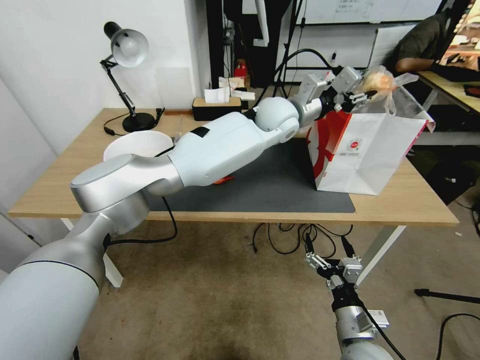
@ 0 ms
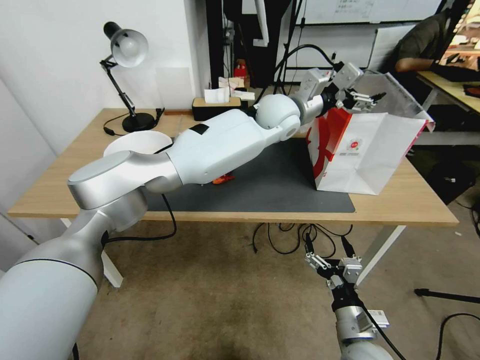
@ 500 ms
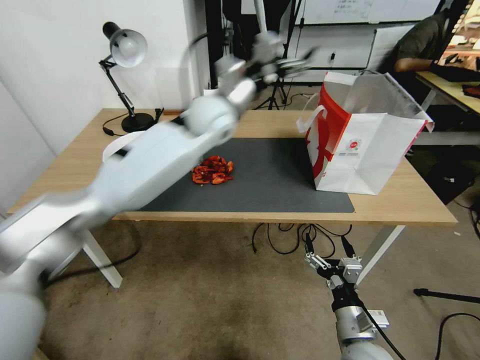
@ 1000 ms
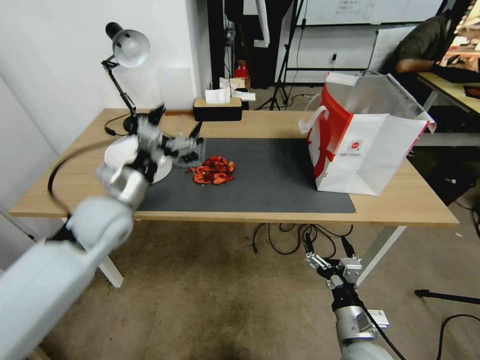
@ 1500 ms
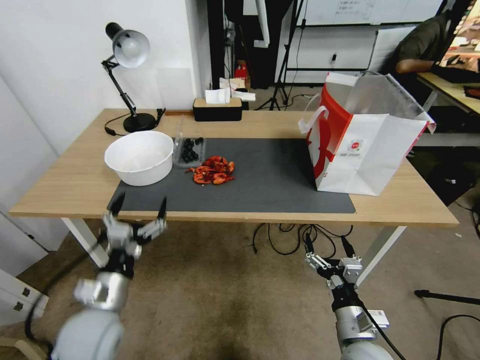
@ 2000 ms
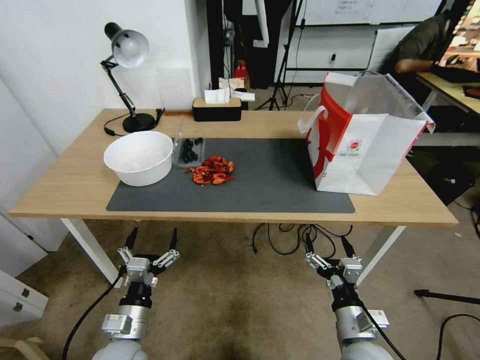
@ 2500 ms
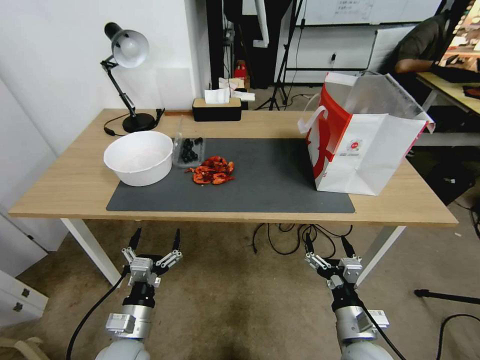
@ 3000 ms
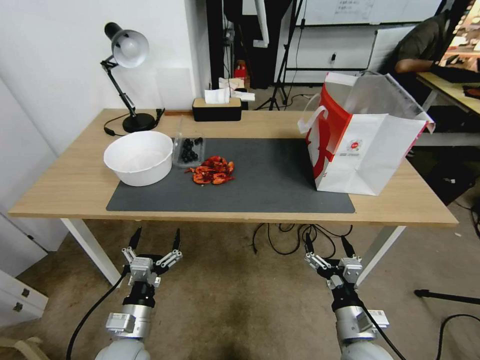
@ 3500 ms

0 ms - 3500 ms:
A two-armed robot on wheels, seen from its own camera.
0 ms - 2000 ms: The left gripper is displaced backward, to the left and downward by some 60 cm, and opens up.
2000 ms - 3500 ms: The left gripper goes approximately 5 cm downward.

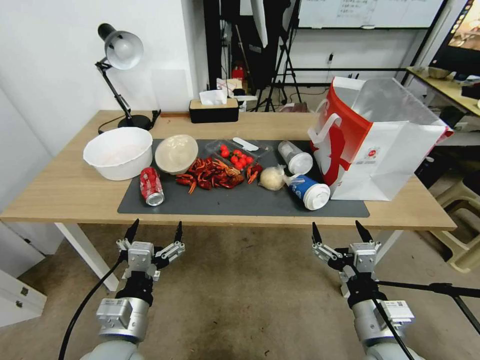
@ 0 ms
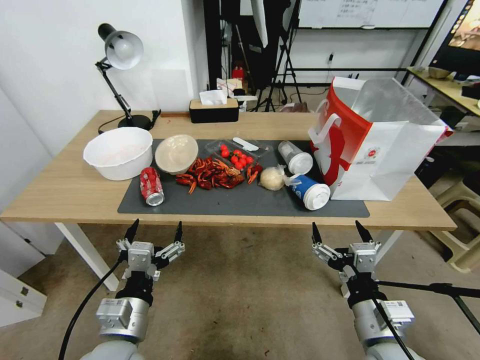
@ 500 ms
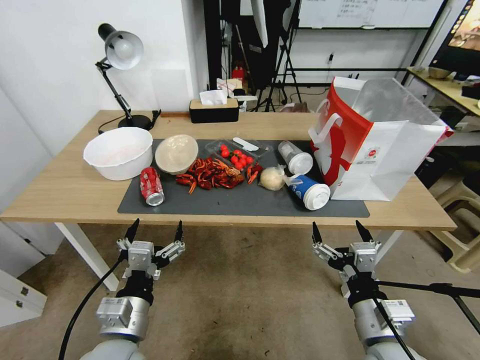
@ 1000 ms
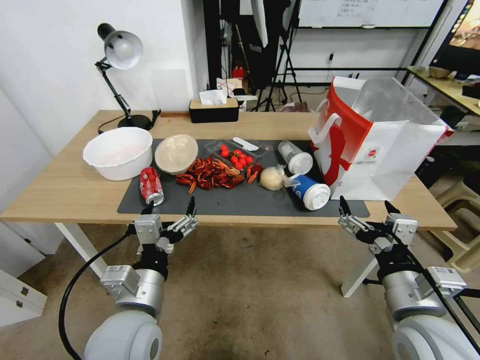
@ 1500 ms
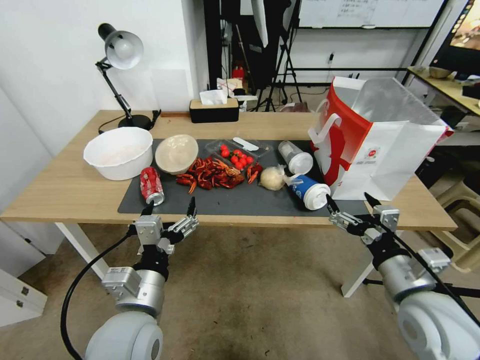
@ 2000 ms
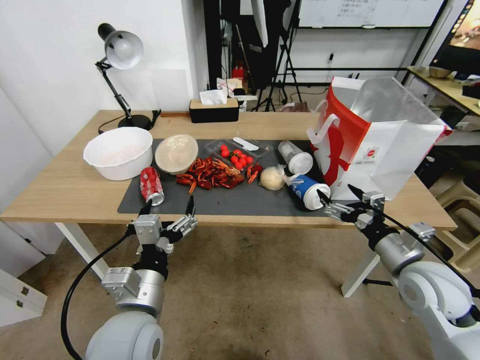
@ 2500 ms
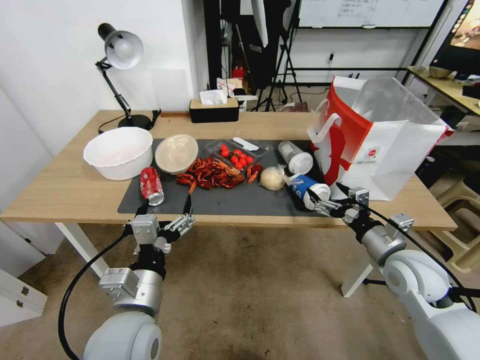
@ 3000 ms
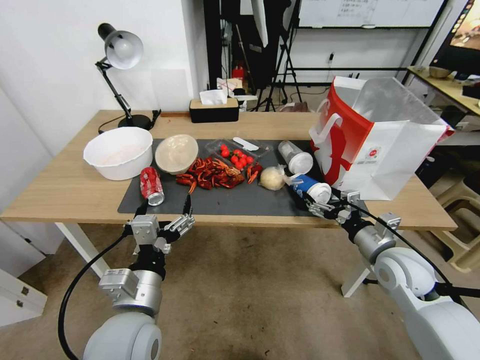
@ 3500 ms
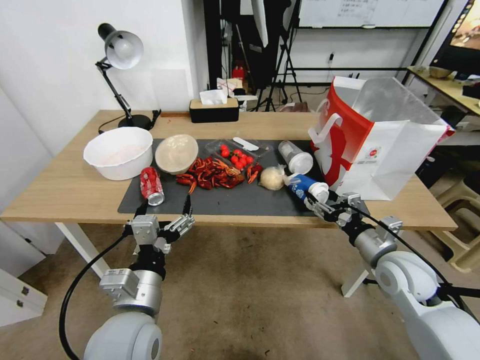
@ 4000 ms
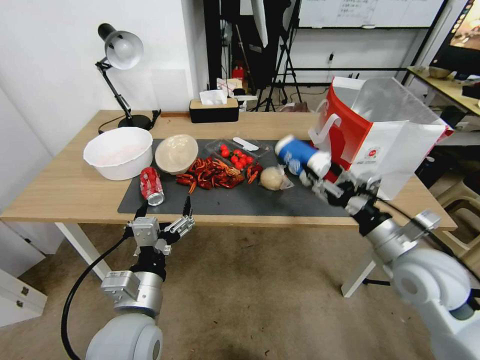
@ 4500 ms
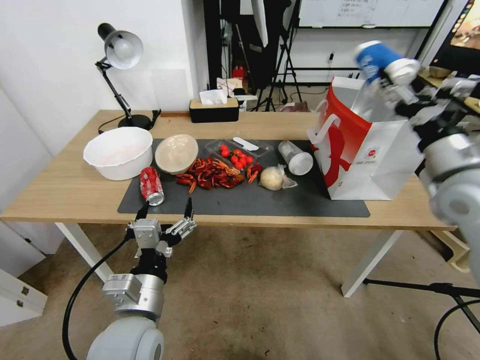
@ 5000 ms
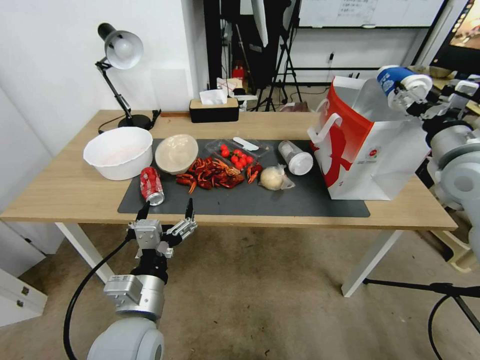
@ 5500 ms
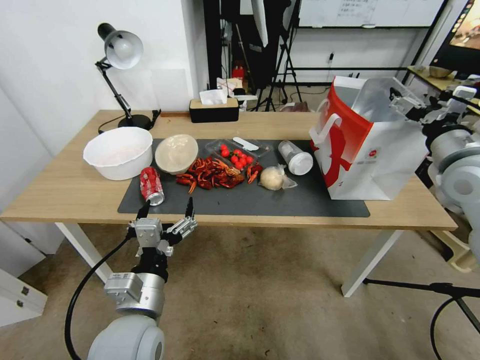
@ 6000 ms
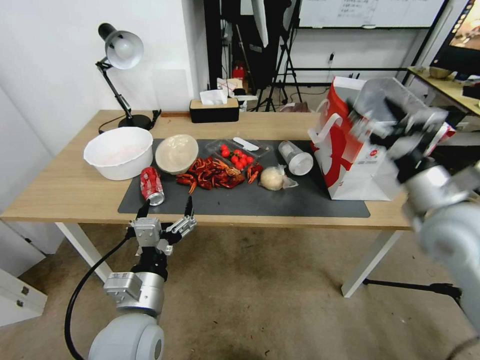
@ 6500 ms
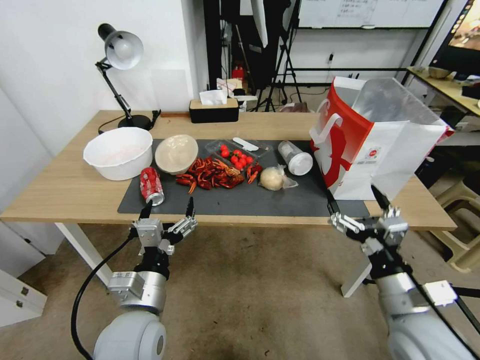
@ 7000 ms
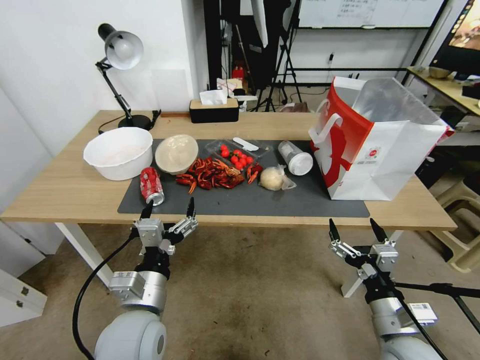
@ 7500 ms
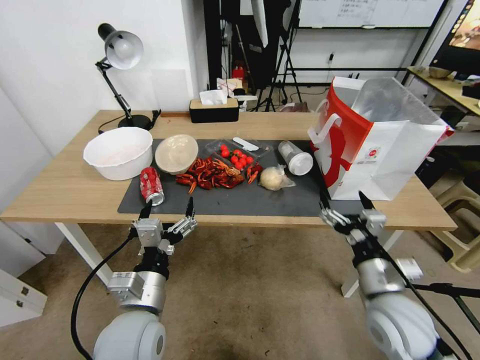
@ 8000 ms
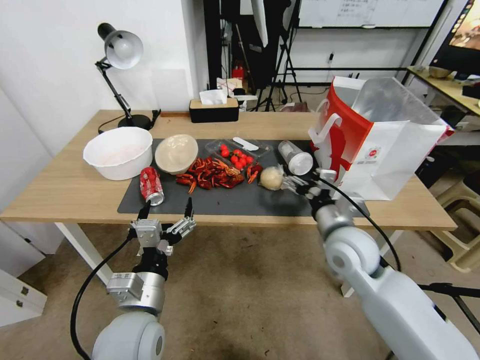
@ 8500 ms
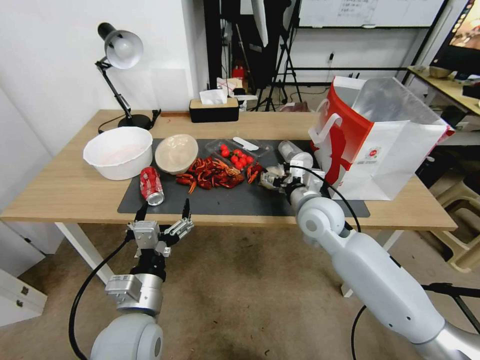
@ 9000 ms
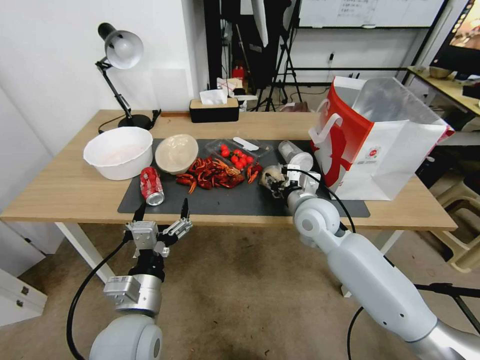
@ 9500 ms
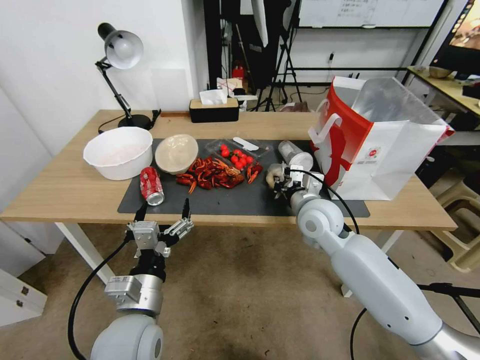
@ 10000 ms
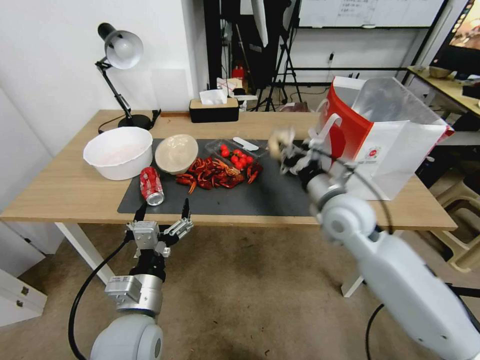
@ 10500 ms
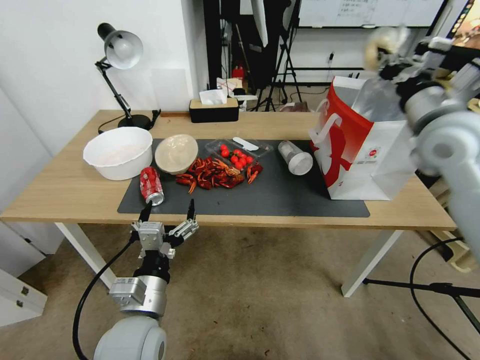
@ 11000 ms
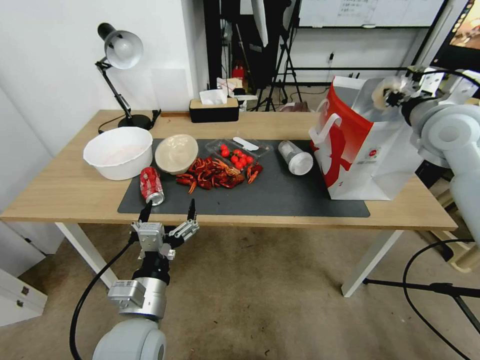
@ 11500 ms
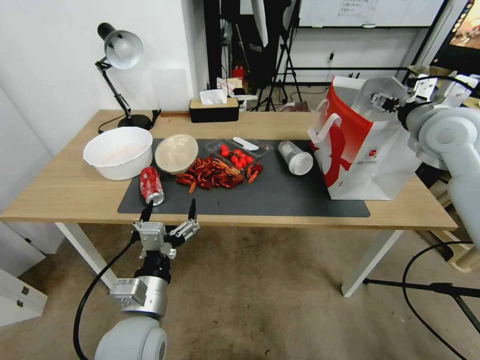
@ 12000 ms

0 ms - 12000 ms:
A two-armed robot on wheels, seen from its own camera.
2000 ms - 4000 ms: The right gripper is displaced forward by approximately 10 cm, and closes up.
4000 ms - 6000 ms: The right gripper heads upward, covering approximately 20 cm, and opens up.
6000 ms - 8000 ms: The right gripper heads downward, backward and to the left, covering about 30 cm.
8000 ms - 10000 ms: The right gripper travels forward and to the left by some 20 cm, and closes.
10000 ms - 12000 ms: The right gripper heads upward and to the right, covering about 30 cm, and opens its fingers.

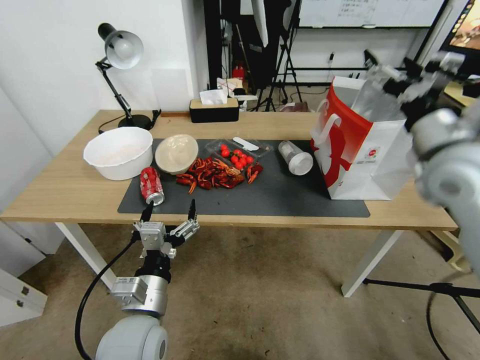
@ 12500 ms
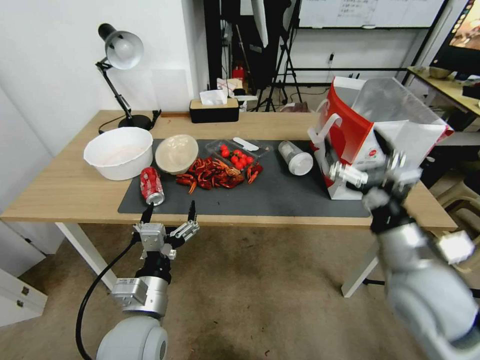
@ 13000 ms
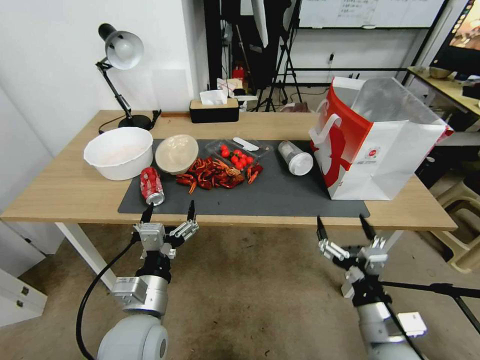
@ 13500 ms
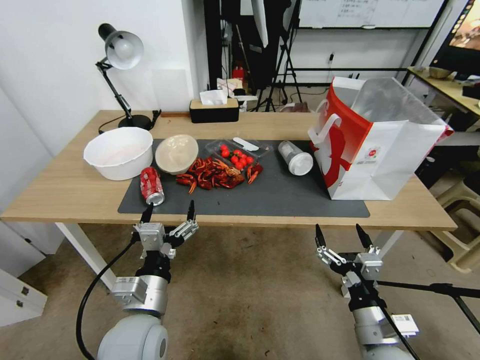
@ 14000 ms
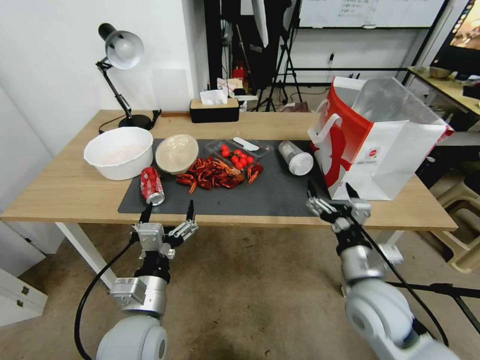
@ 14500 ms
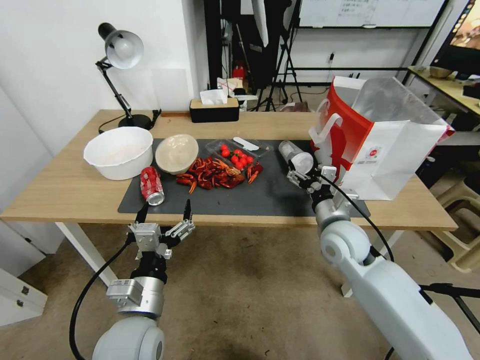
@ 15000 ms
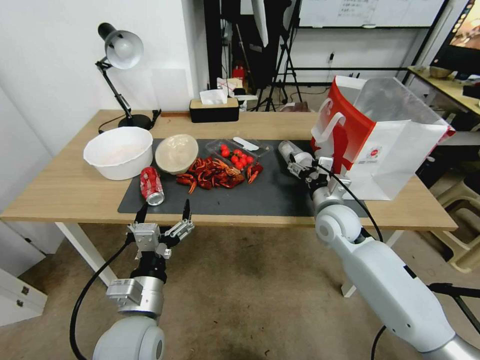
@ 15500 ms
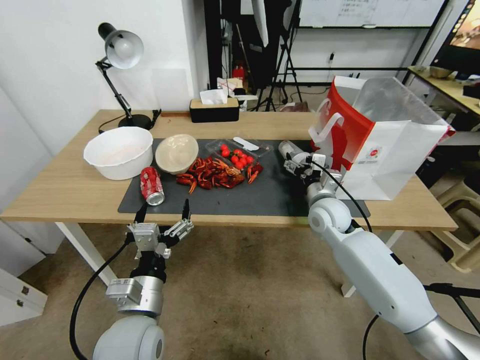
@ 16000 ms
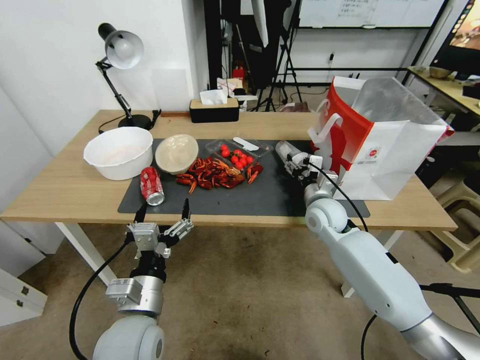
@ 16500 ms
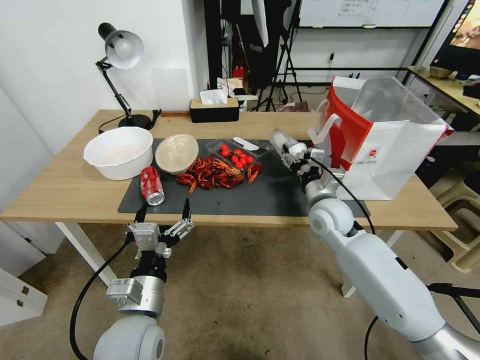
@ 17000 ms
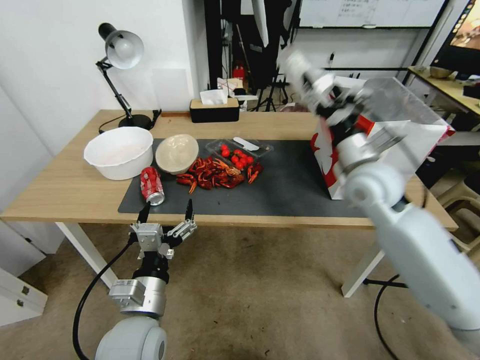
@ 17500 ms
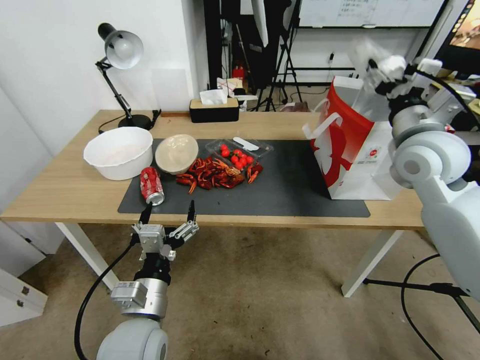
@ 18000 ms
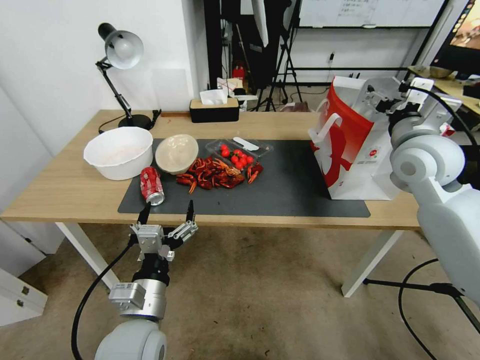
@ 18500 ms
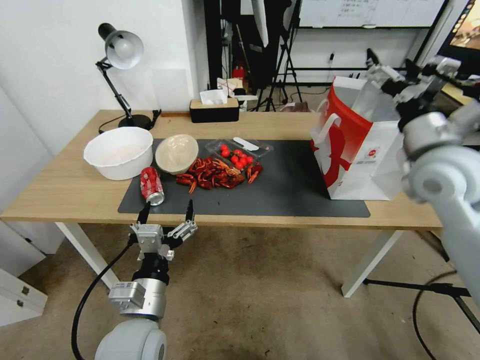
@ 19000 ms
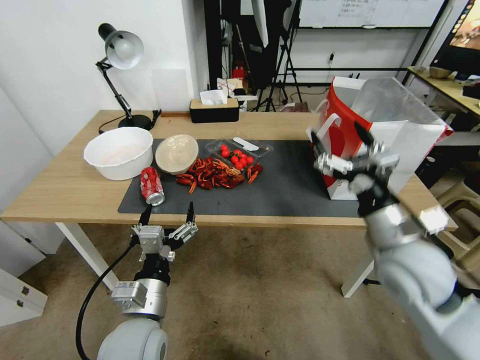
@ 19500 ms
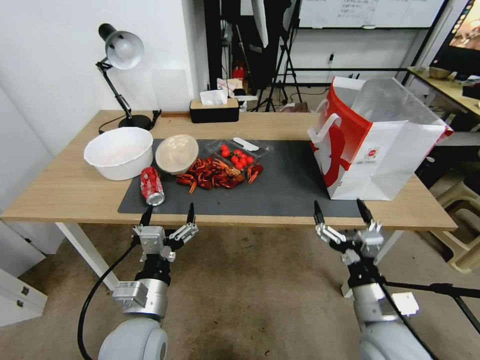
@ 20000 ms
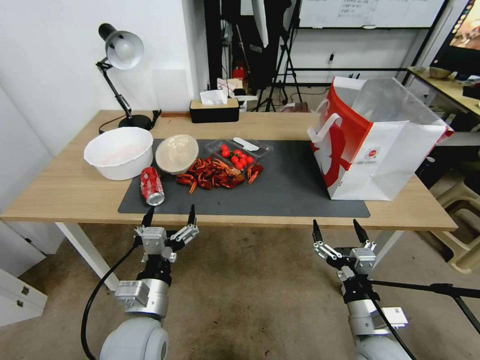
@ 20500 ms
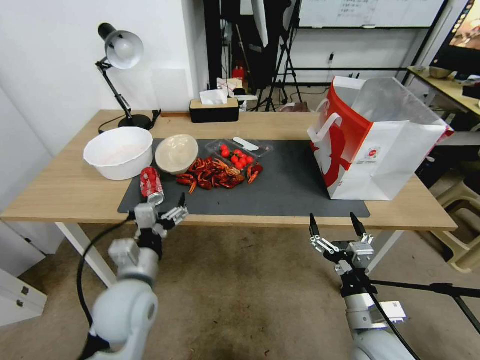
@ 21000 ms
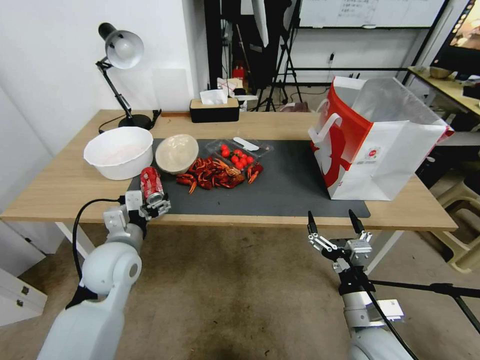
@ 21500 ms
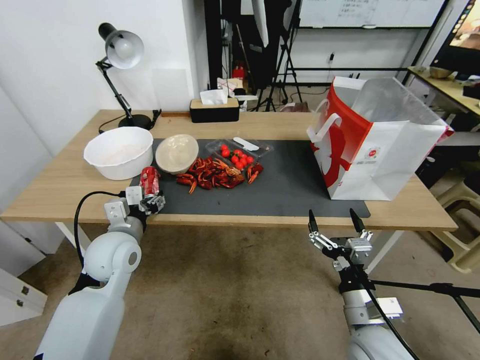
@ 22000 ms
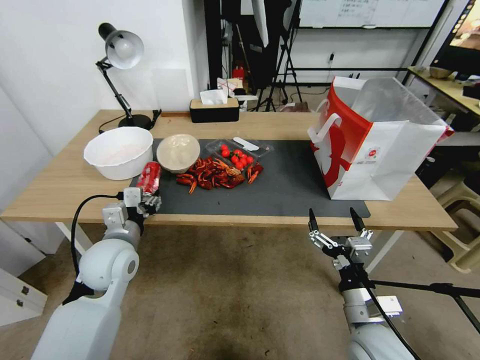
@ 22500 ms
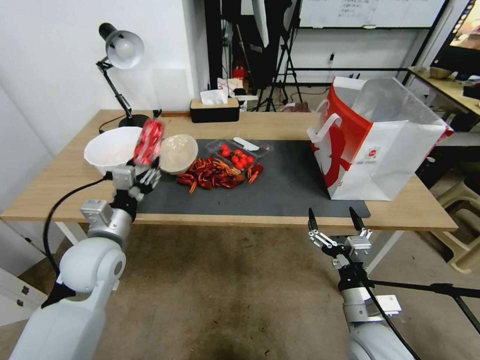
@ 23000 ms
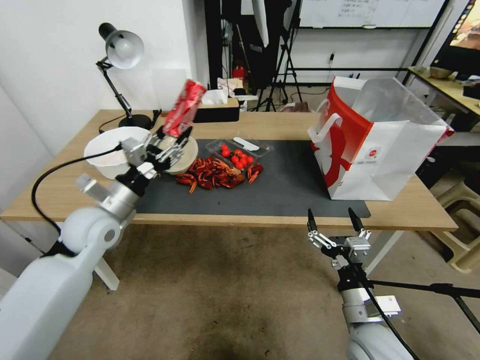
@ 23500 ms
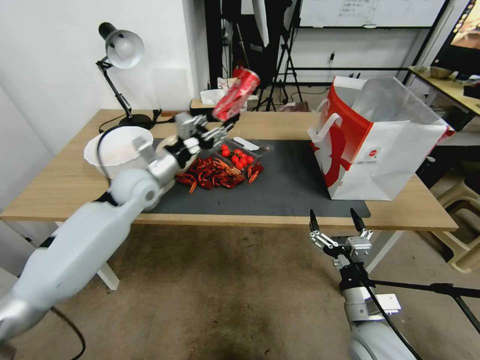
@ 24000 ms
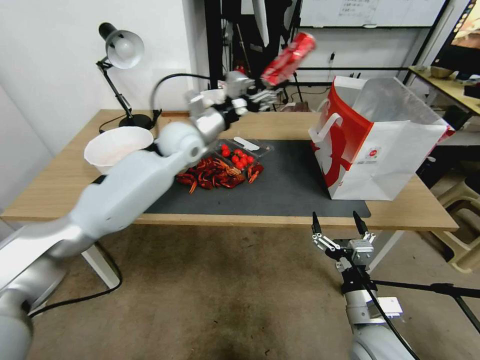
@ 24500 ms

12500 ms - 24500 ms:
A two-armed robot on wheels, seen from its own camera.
12500 ms - 14500 ms: The right gripper travels downward, backward and to the left by some 30 cm.
14500 ms - 16500 ms: The right gripper heads forward, covering some 20 cm.
16500 ms - 18500 ms: The right gripper moves upward and to the right, roughly 25 cm.
18500 ms - 20500 ms: The right gripper is displaced downward and backward by about 35 cm.
20500 ms - 22500 ms: The left gripper moves forward and to the left, some 15 cm, and closes up.
22500 ms - 24500 ms: The left gripper shifts about 30 cm forward, to the right and upward.
